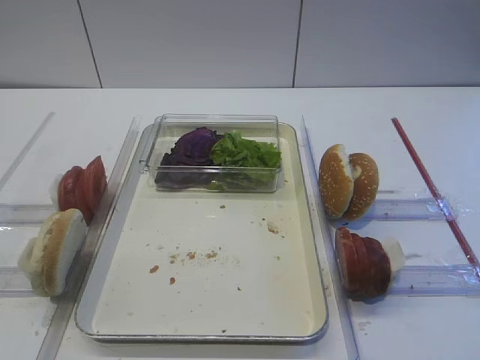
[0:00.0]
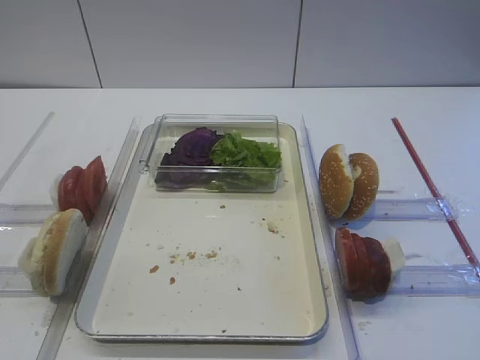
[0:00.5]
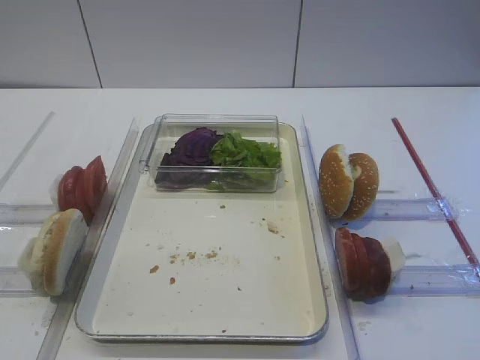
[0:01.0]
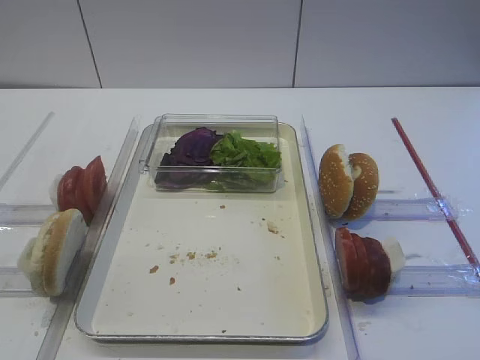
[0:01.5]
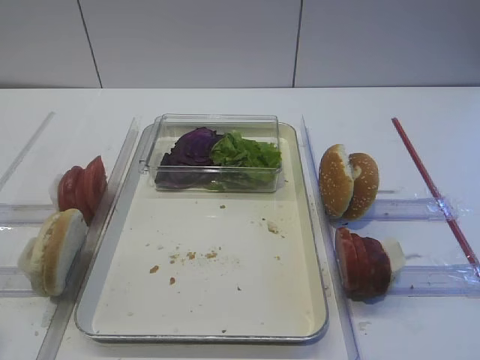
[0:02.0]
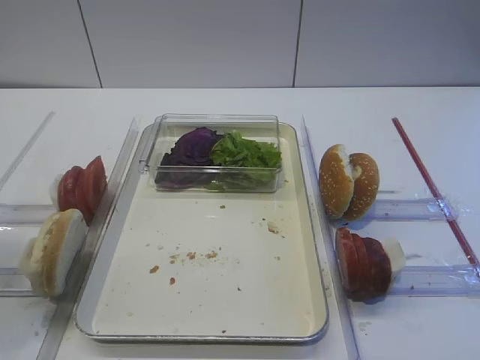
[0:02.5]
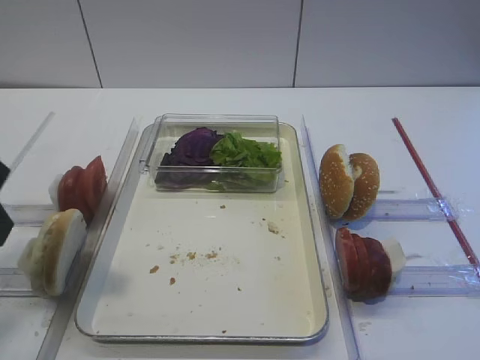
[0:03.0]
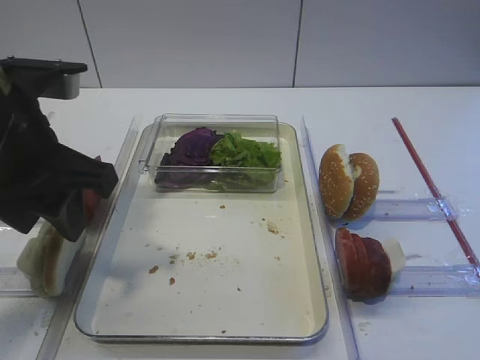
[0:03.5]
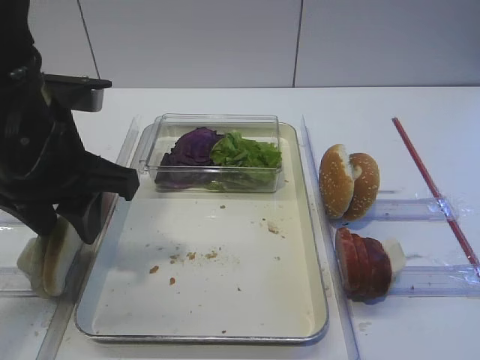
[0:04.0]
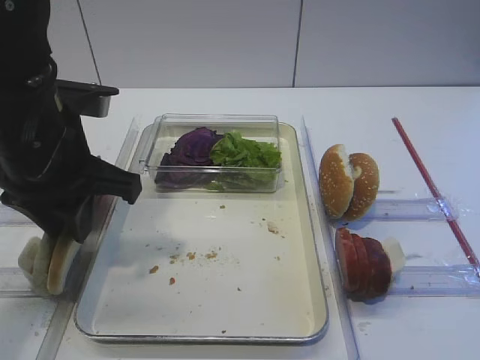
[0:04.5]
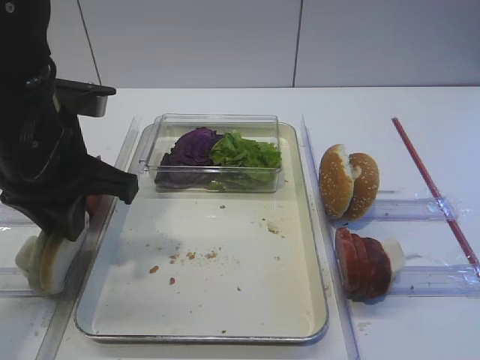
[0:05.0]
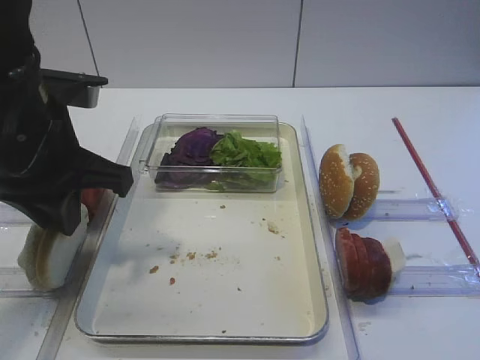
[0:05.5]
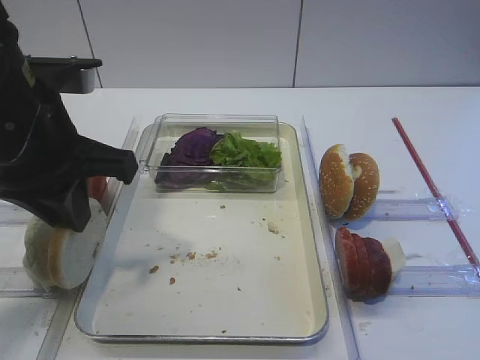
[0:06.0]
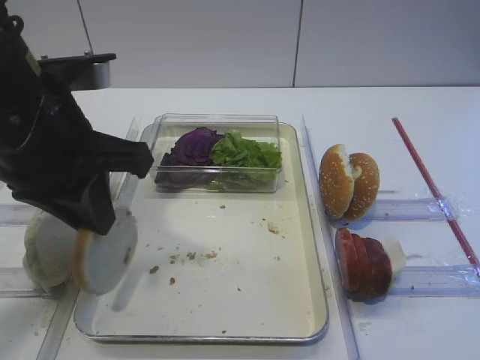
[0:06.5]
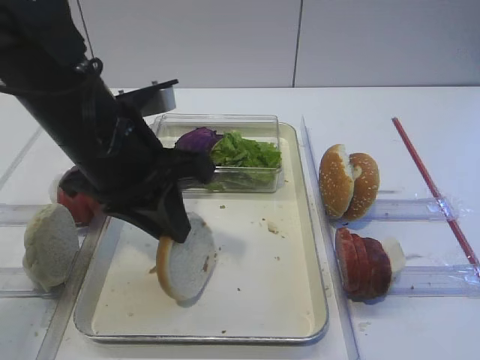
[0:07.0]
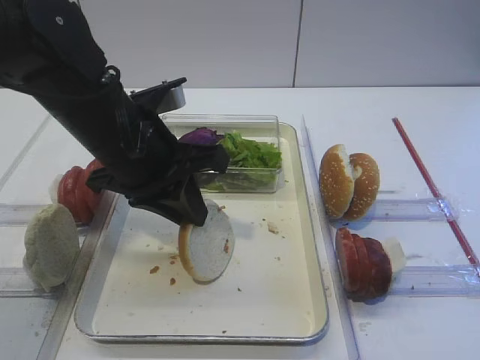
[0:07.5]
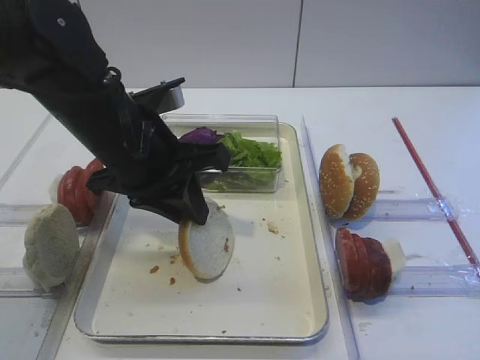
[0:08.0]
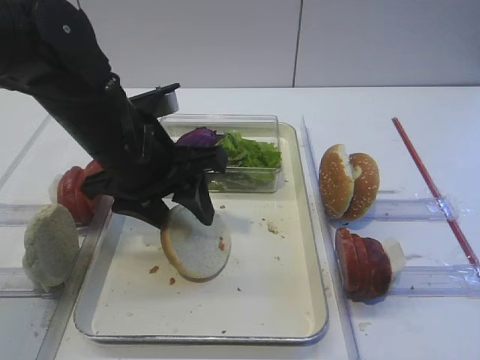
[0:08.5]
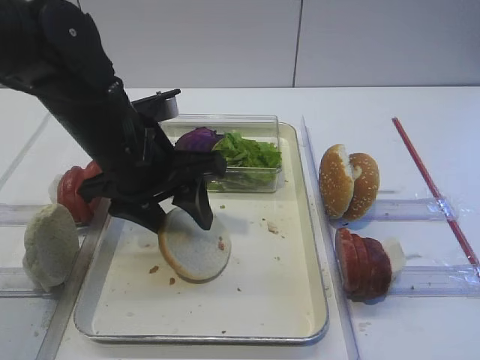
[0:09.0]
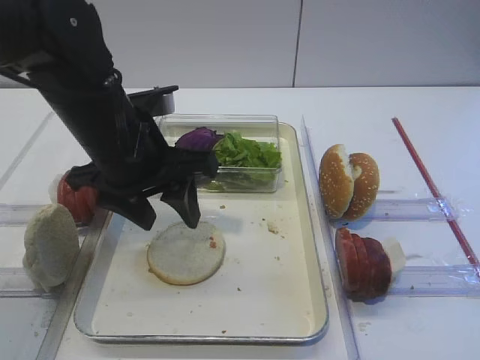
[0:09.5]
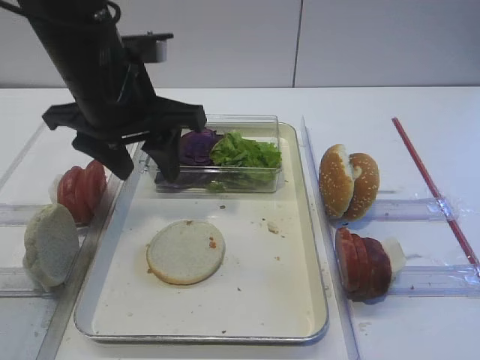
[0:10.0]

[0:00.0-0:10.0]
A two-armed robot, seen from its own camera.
Step, 0:00.0 to 0:06.0: Pick up the bread slice with the left gripper.
Step, 0:06.5 to 0:09.5: Place the bread slice on the tray with the left gripper.
0:02.0 to 0:04.0: The left gripper goes approximately 25 cm forward and to the right.
0:04.0 to 0:06.0: The left gripper closes up.
0:06.0 to 0:08.0: The left gripper heads to the right and downward, covering approximately 10 cm.
0:08.0 to 0:10.0: The left gripper moves upward, some 5 cm, and opens its fingers.

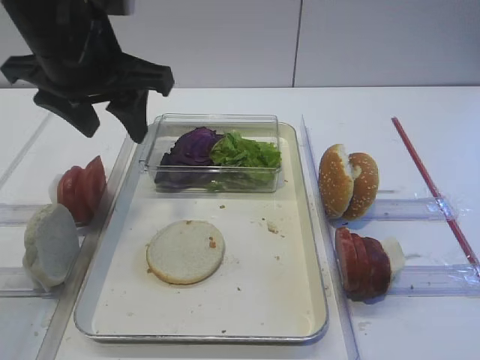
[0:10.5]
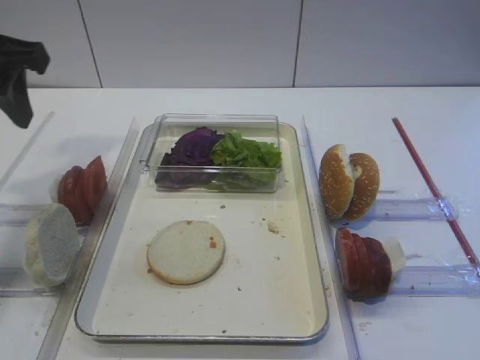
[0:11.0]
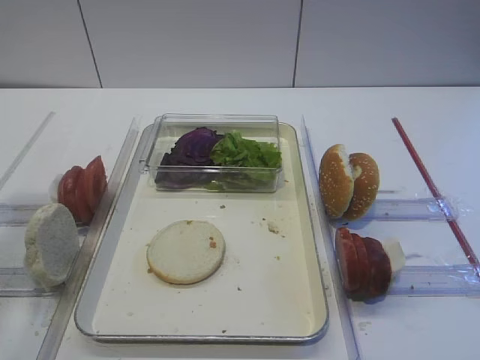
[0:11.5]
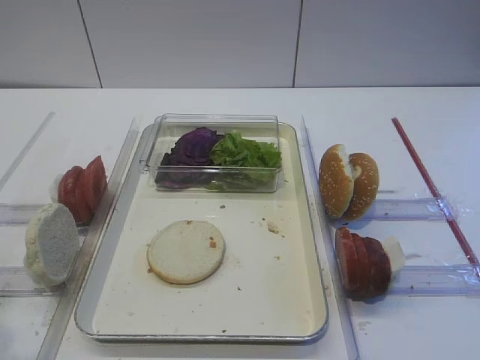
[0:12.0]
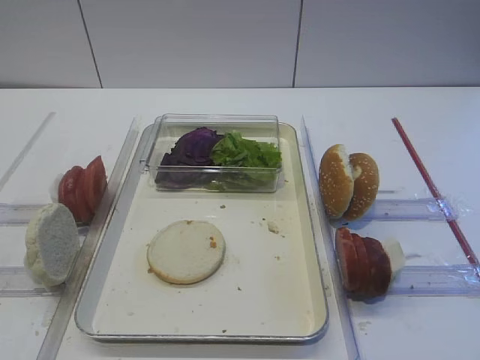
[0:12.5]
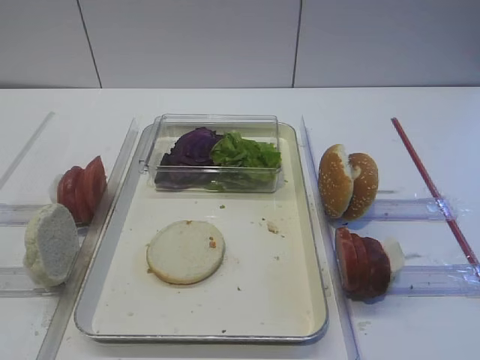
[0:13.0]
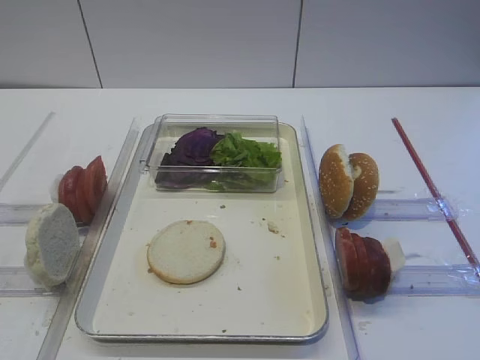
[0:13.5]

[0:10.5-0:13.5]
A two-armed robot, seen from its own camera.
0:10.5 to 0:12.0: The left gripper heads backward and to the left, covering approximately 30 cm.
